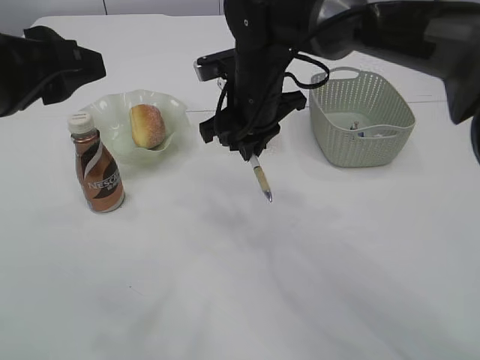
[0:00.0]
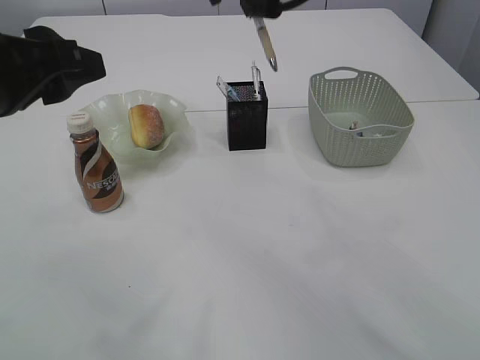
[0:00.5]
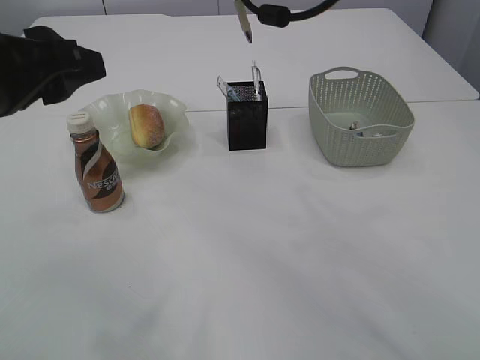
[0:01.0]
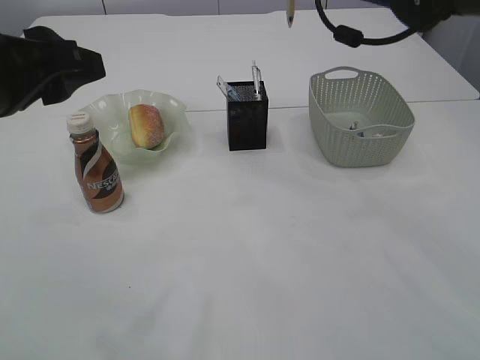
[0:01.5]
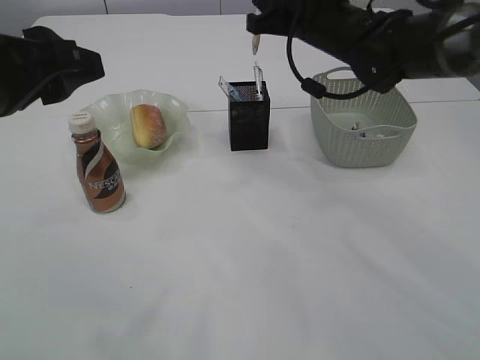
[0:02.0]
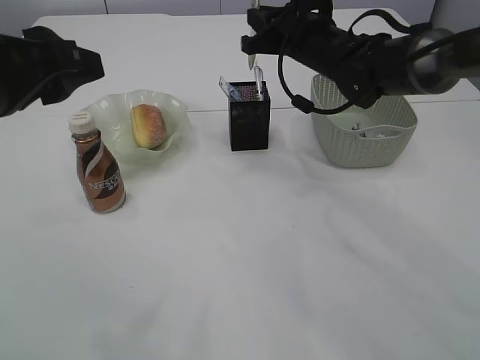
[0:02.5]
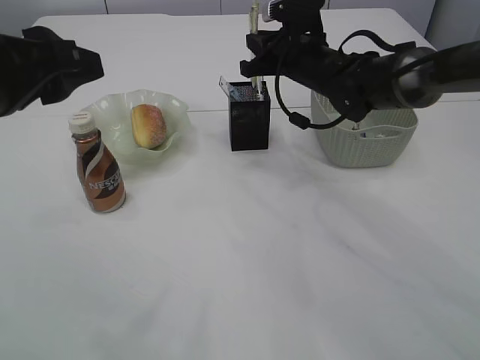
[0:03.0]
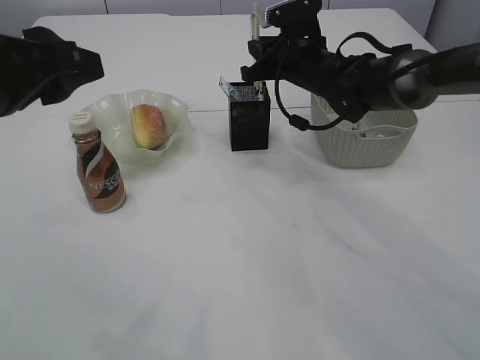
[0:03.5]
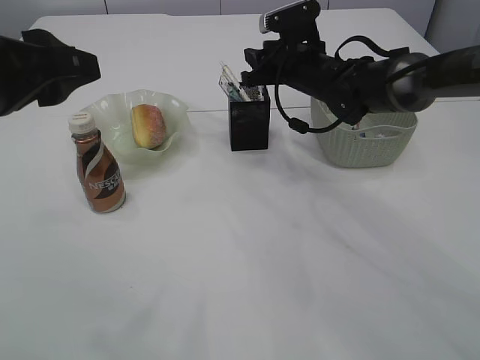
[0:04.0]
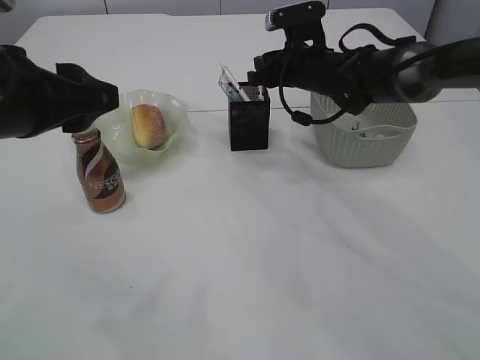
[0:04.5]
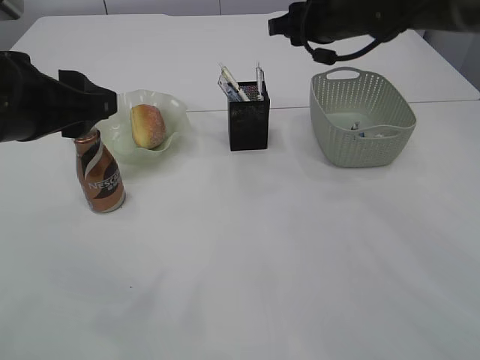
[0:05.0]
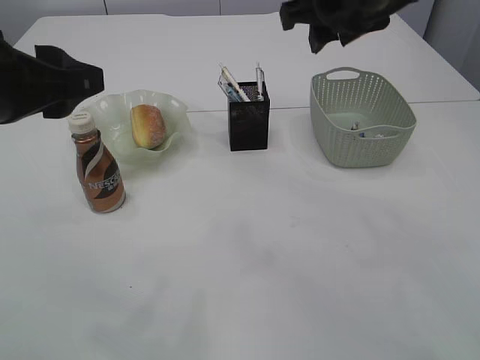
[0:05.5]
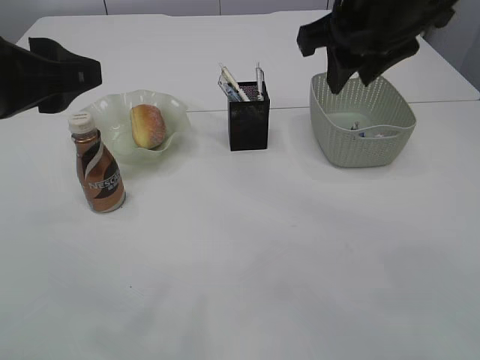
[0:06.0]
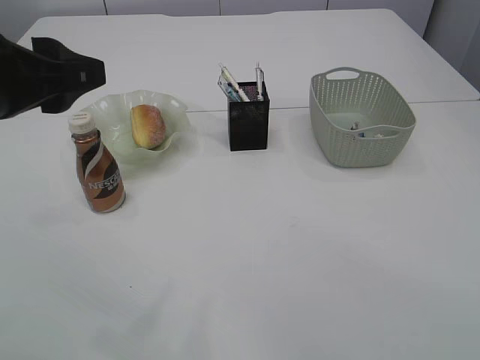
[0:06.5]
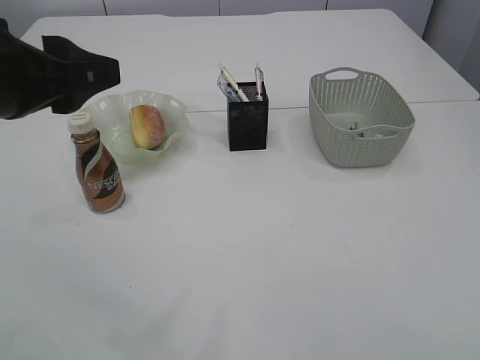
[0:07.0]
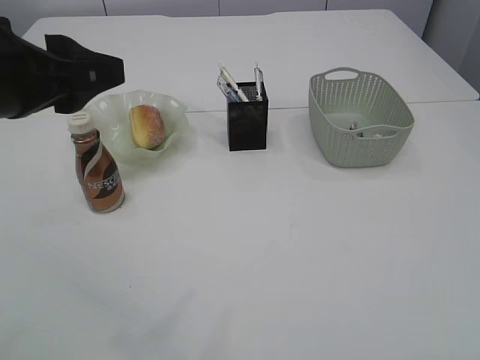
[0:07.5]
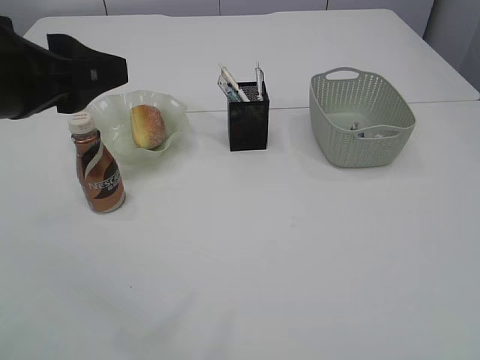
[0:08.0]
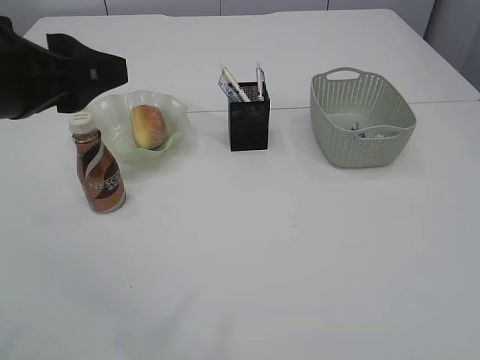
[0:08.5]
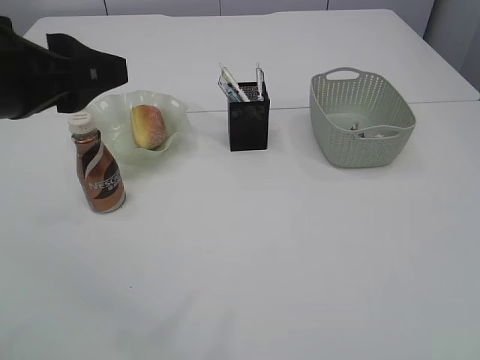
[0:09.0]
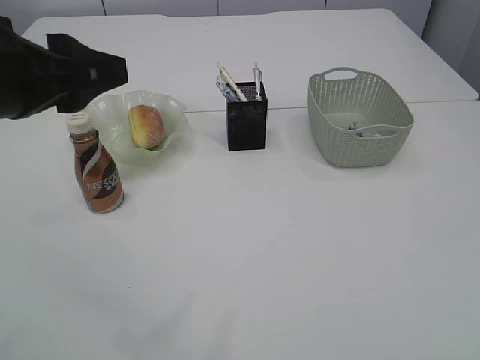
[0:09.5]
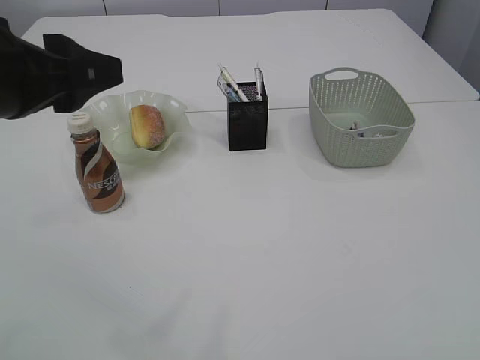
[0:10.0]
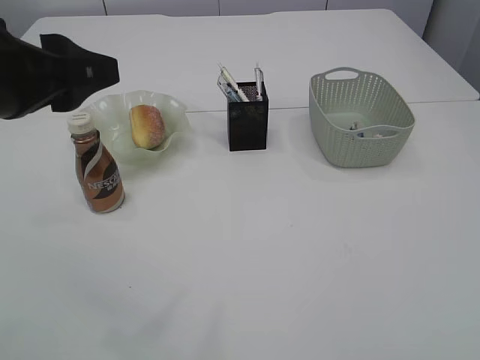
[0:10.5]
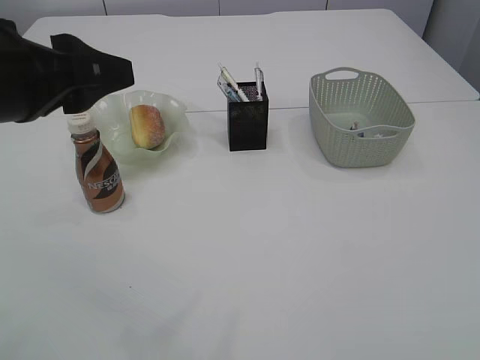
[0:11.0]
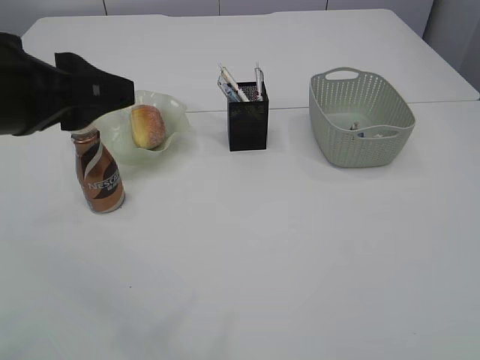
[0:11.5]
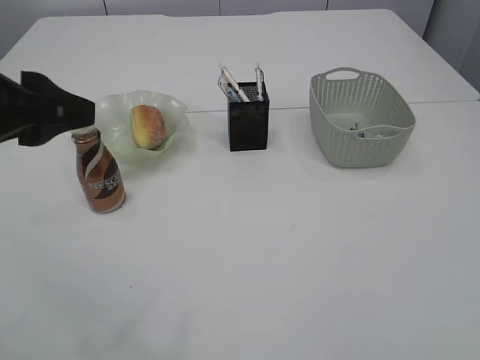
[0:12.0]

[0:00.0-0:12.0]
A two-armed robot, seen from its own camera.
Step, 0:00.0 to 0:04.5: Place the pen into the pen holder.
0:00.0 to 0:02.0: The right gripper travels to the right by roughly 10 cm, and travels upward and back again, some 15 cm each way.
0:02.0 to 0:04.0: The right gripper moves downward, about 10 cm, and opens up.
0:04.0 to 0:06.0: The right gripper is displaced backward and upward by approximately 25 cm.
0:06.0 to 0:08.0: The right gripper travels backward and to the right by about 40 cm.
0:10.0 to 0:12.0: There are only small adjustments of the grippers.

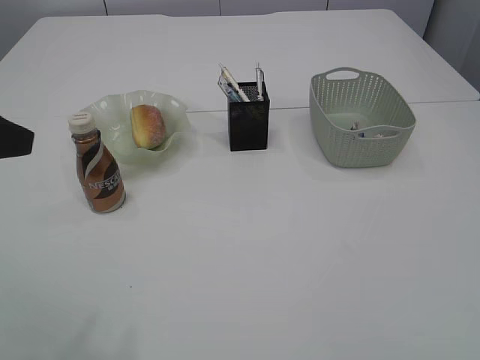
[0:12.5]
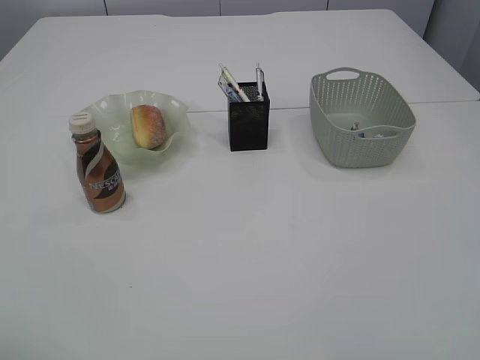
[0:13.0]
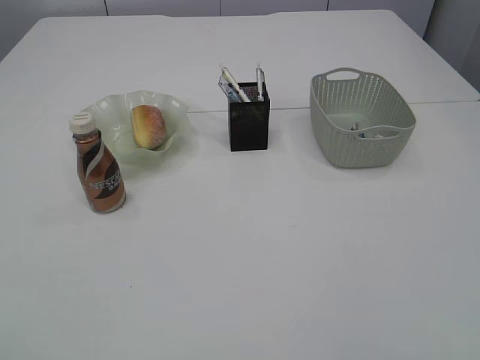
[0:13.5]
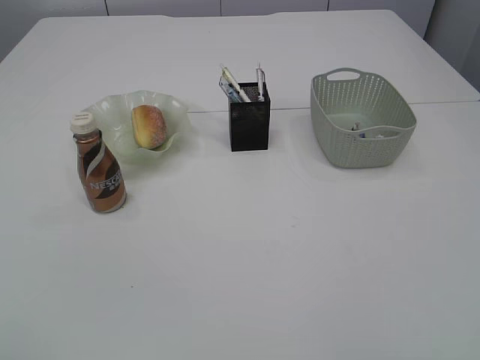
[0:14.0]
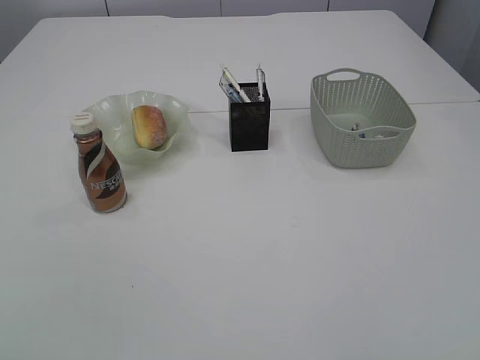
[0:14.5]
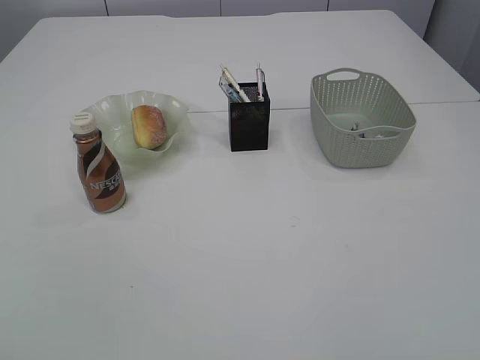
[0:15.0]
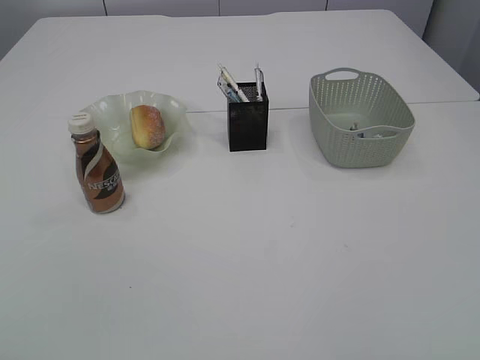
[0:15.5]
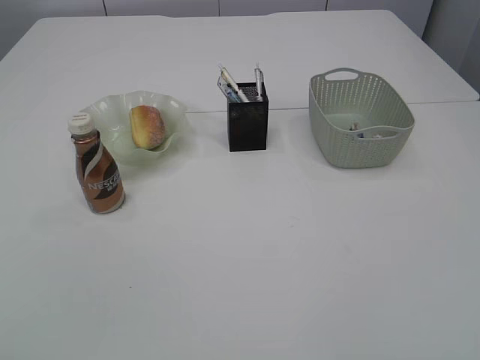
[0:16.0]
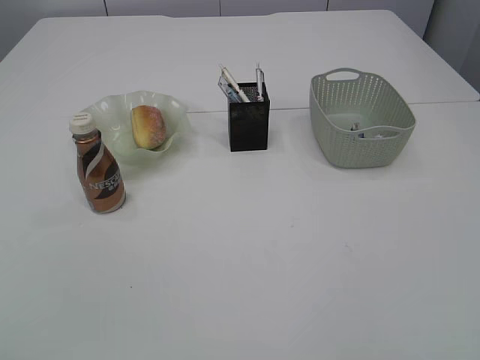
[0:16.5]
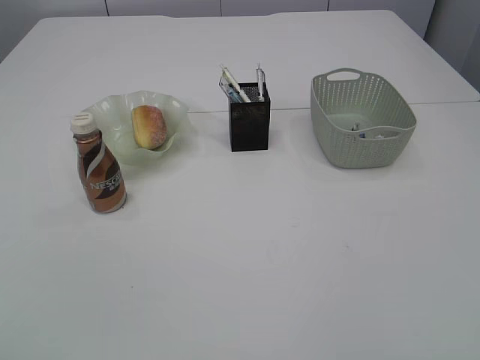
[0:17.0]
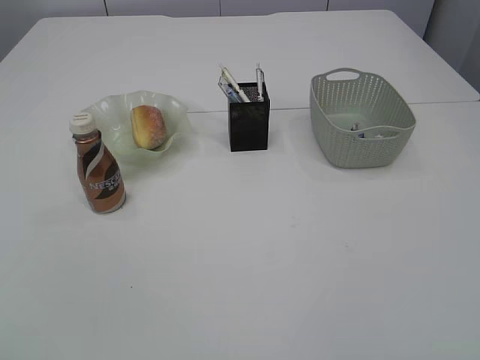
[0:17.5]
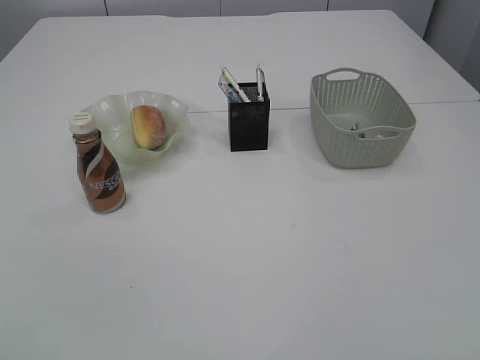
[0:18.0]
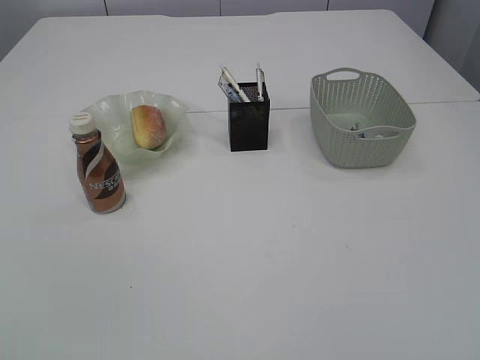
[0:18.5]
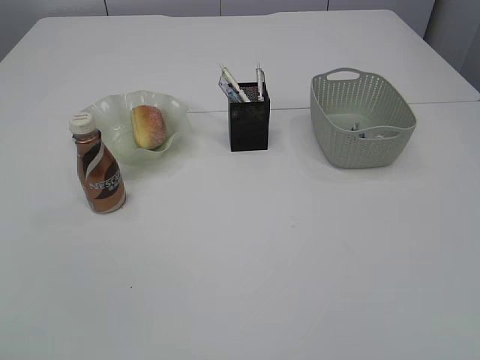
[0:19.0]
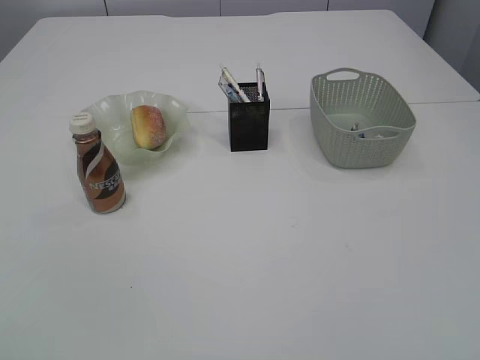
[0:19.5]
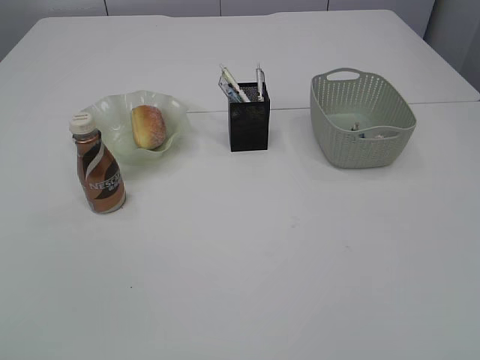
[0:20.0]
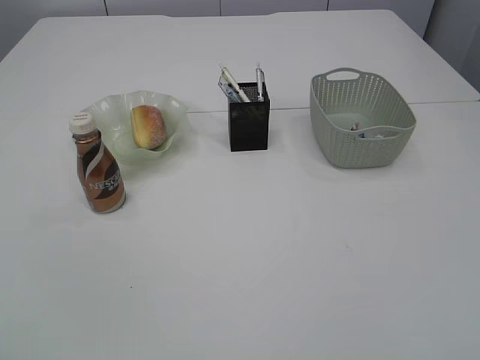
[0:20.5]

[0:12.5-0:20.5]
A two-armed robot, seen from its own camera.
0:12.5 to 0:14.5: The left gripper is displaced backward by some 25 cm.
0:16.5 to 0:18.5: The two grippers keep their place.

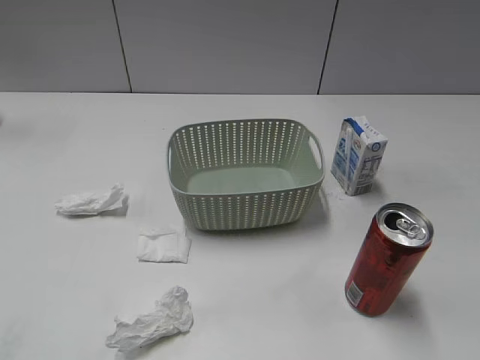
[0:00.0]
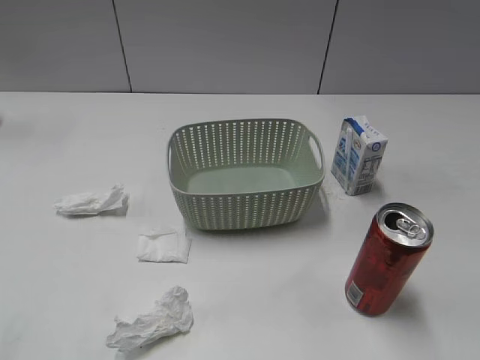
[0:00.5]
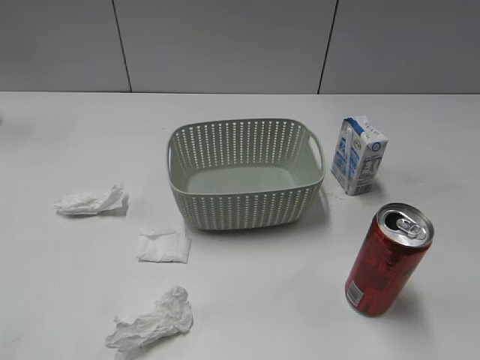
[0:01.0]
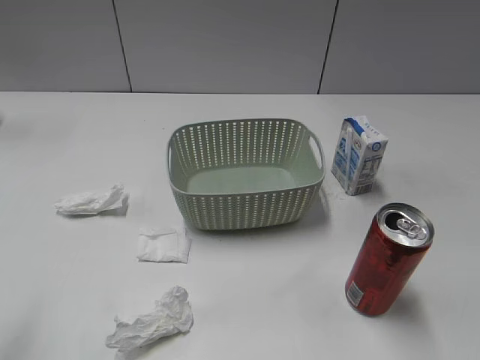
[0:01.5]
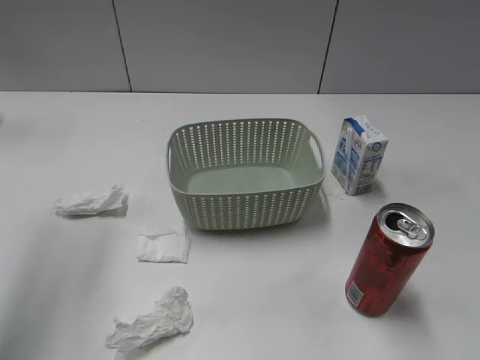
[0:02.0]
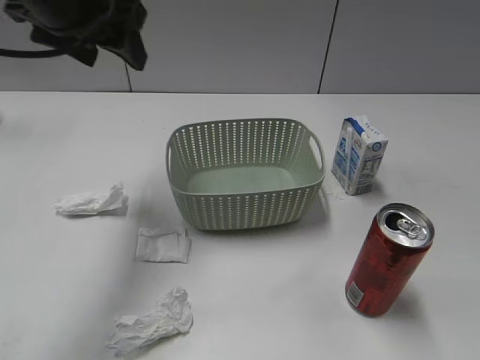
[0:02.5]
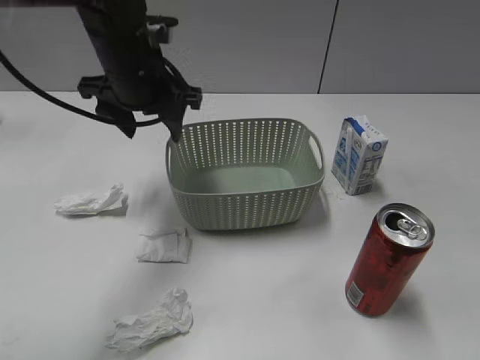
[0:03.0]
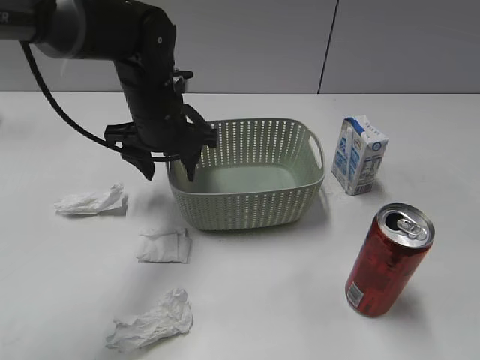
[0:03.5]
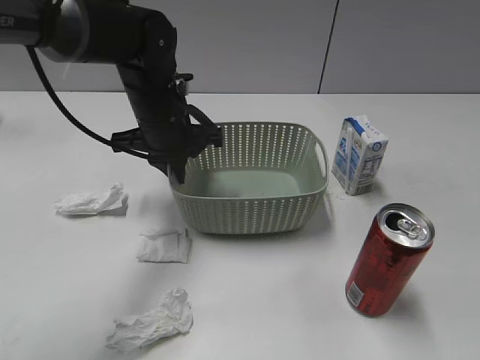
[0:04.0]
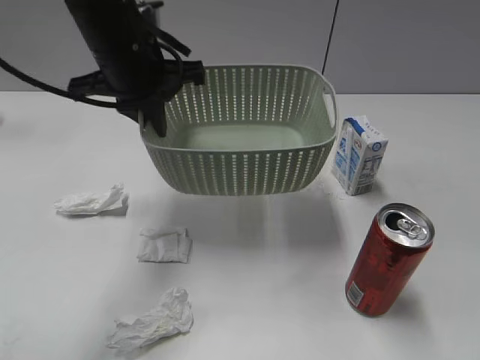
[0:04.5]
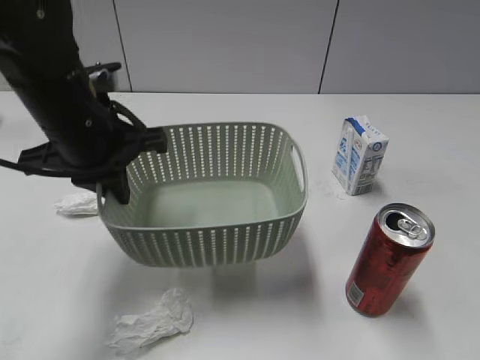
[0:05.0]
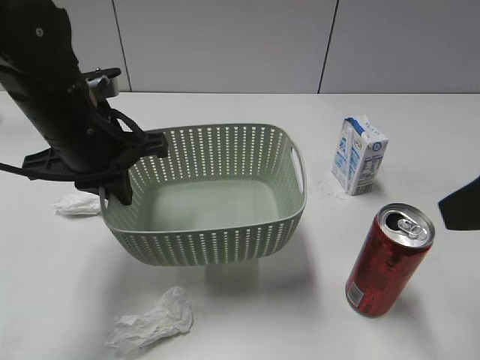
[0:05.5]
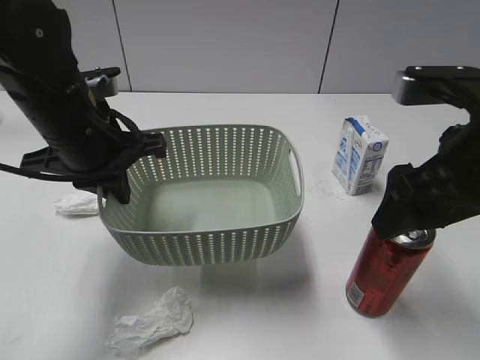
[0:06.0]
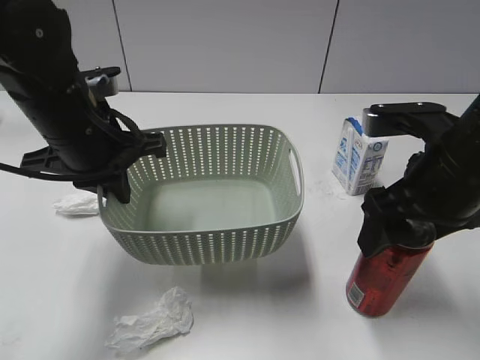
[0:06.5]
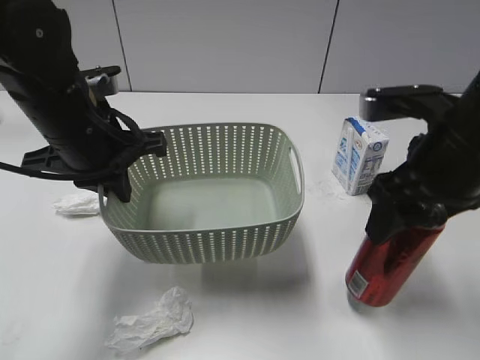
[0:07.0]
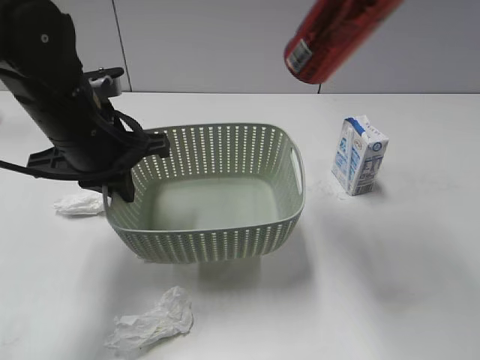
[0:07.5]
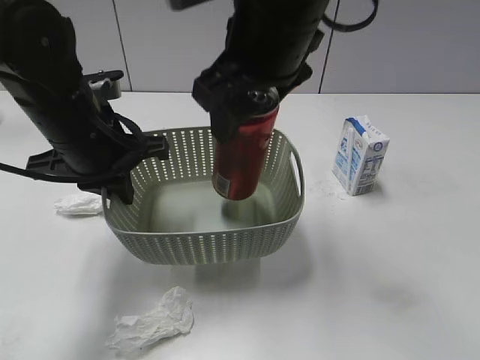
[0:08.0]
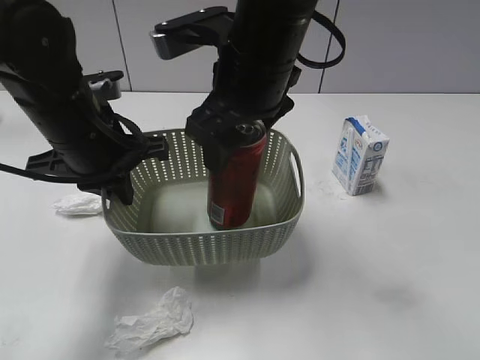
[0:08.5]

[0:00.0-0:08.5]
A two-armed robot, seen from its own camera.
Step, 0:02.5 to 0:04.0: Grasp the basket with left gripper.
Step, 0:04.5 to 0:05.0: Lift the basket with left gripper.
Step, 0:05.5 to 0:06.5: Grasp the cola can with right gripper.
0:02.0 to 0:04.0: The left gripper heads downward, to the right and forward, covering approximately 30 cm, and closes up.
0:04.0 to 0:06.5: The left gripper moves backward, to the left and upward, roughly 10 cm; the right gripper travels forward and to the left by about 25 cm, and opens, then closes once more.
0:06.5 to 0:08.5: The right gripper is displaced to the left by some 15 cm, and travels upward and back again, some 20 cm each way.
